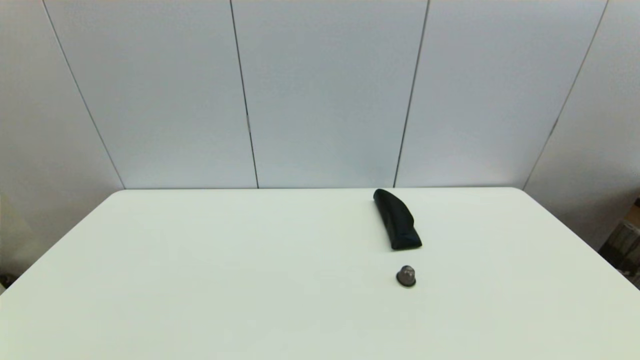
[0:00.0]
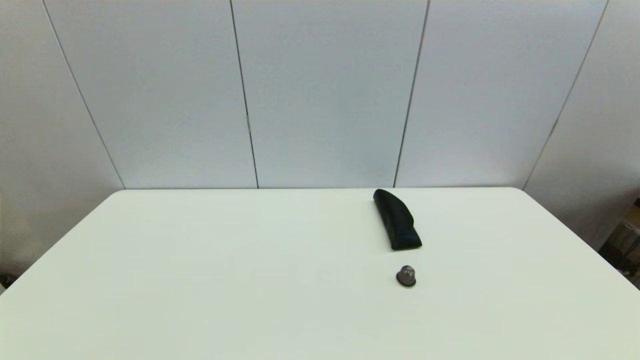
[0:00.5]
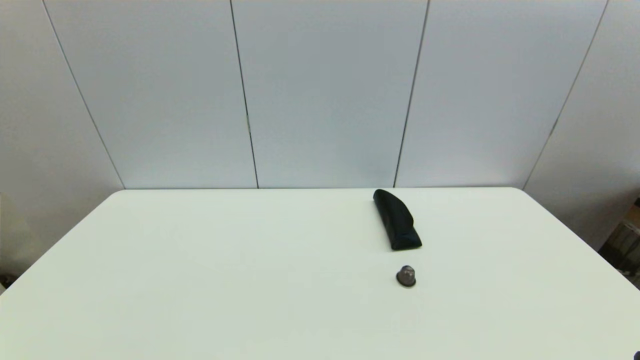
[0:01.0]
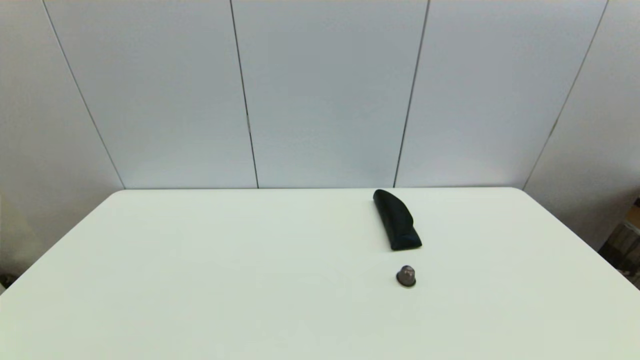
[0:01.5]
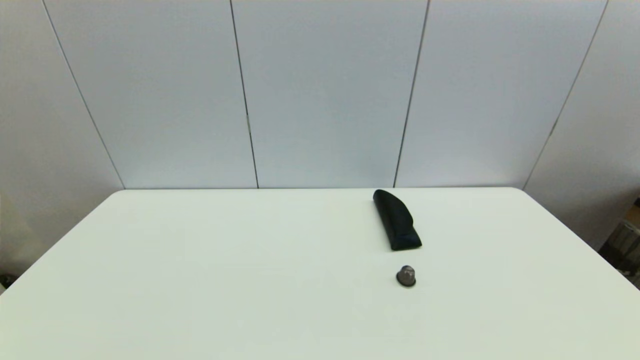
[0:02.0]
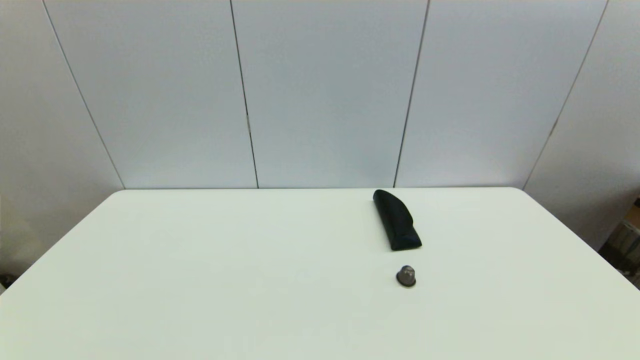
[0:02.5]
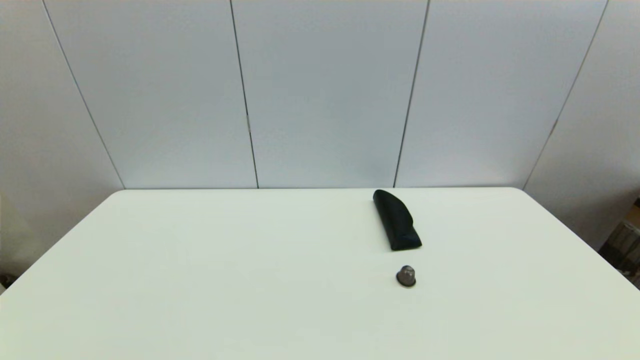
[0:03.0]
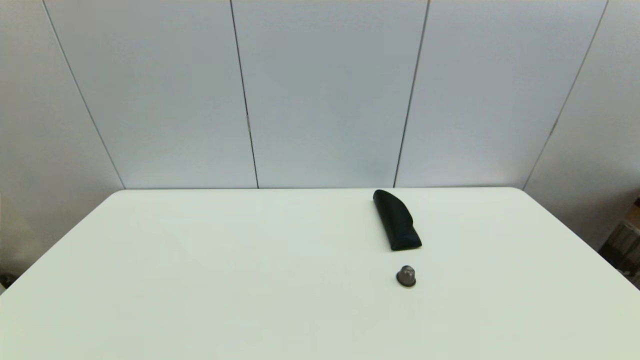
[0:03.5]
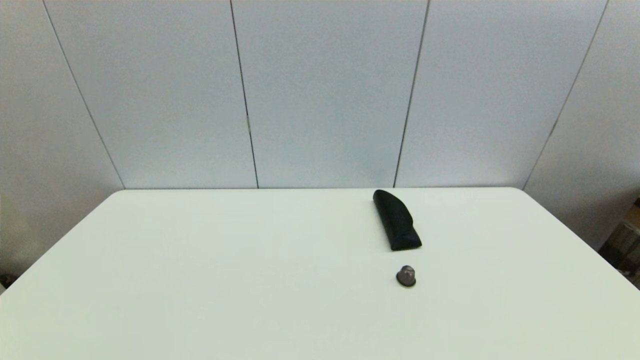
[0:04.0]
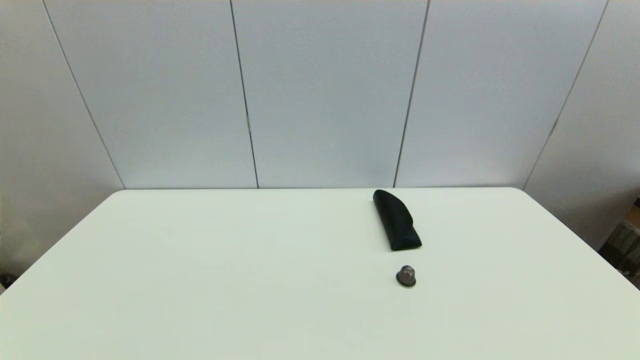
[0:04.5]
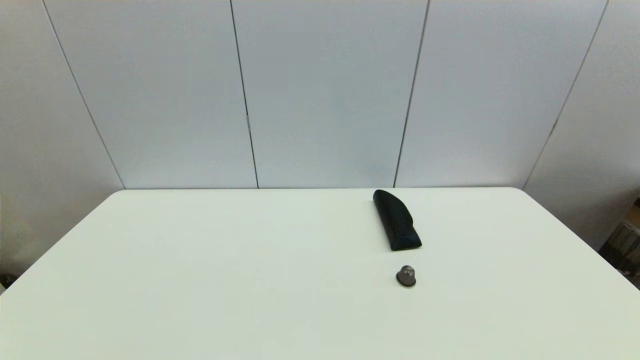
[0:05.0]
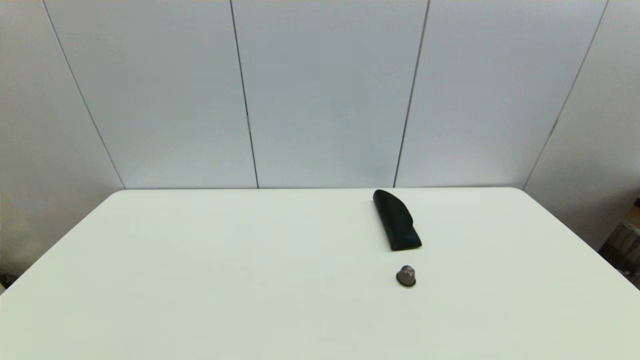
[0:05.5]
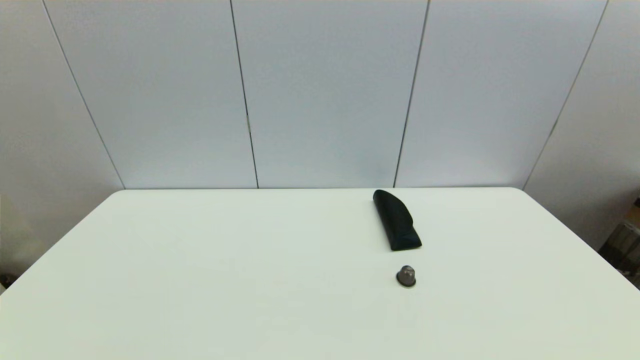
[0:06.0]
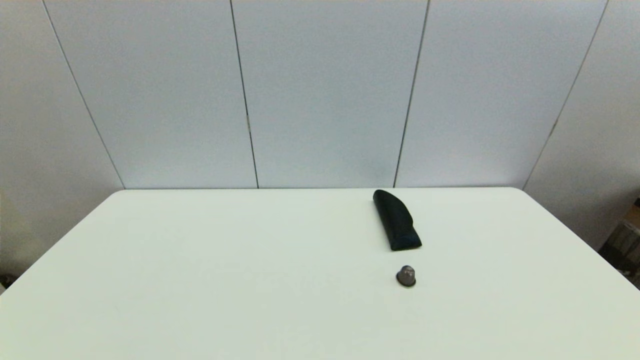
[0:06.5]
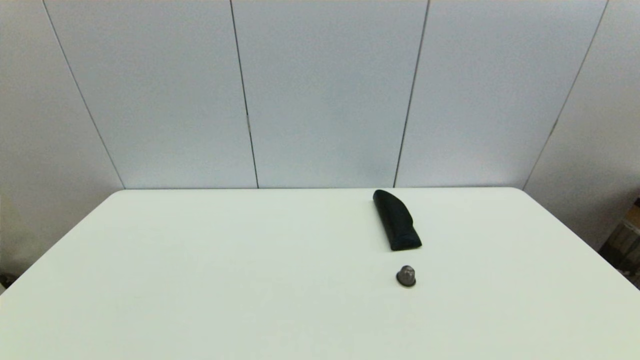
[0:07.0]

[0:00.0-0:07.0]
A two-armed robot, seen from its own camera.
0:03.5 to 0:05.0: Both grippers stay about where they are.
0:05.0 to 0:07.0: The two grippers keep their place.
